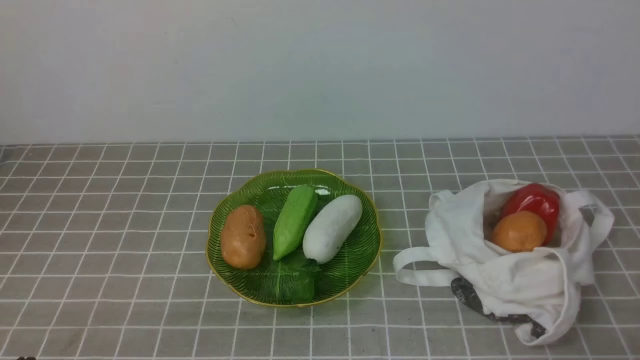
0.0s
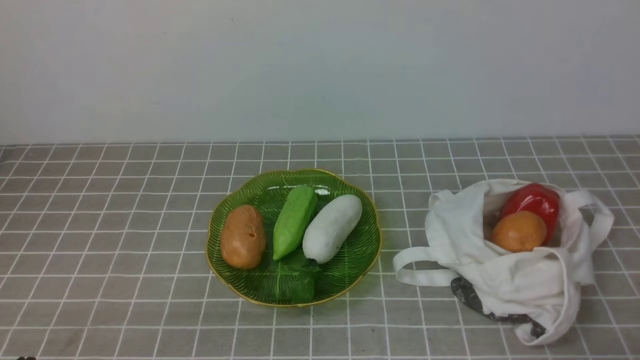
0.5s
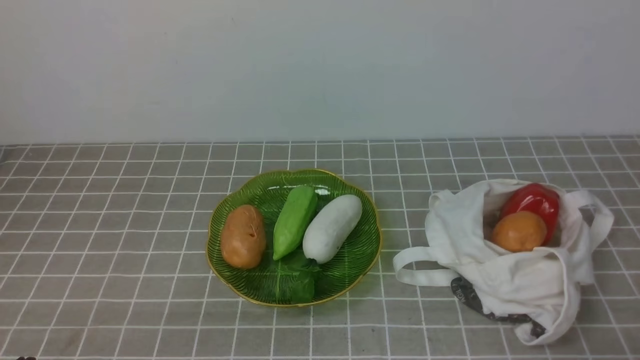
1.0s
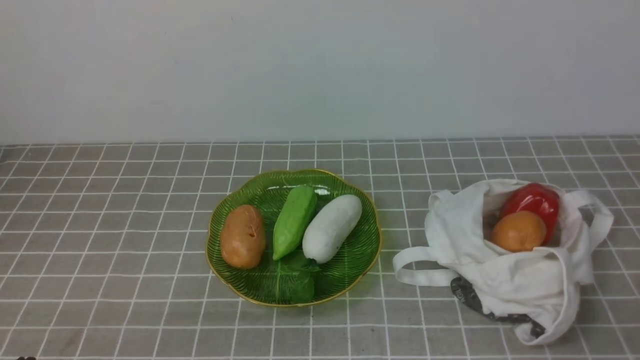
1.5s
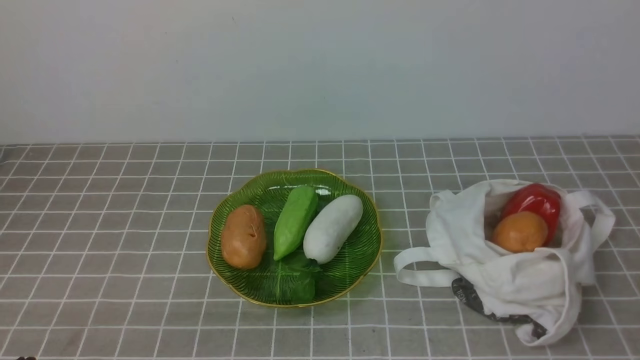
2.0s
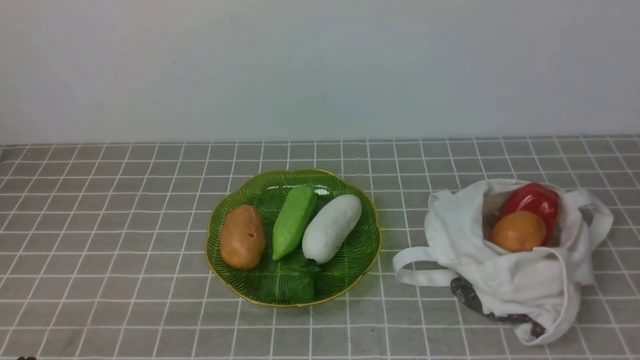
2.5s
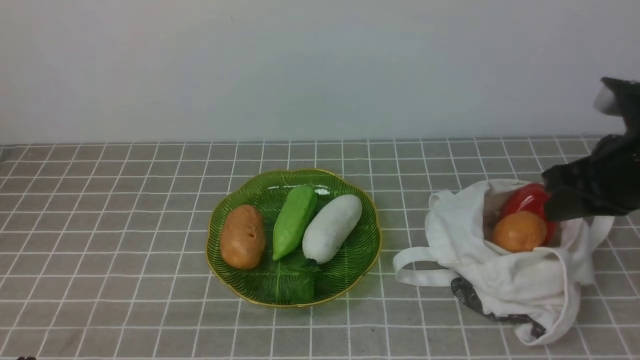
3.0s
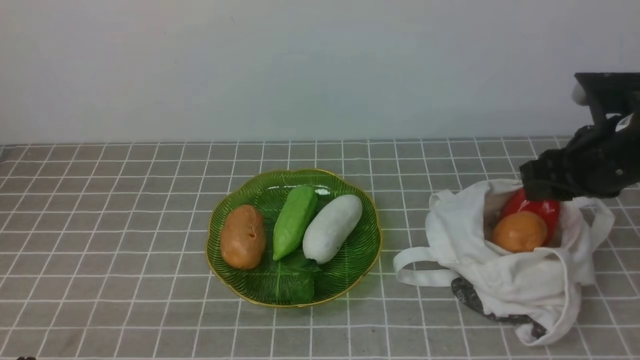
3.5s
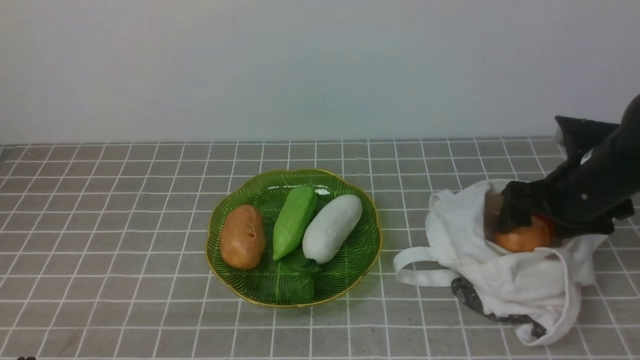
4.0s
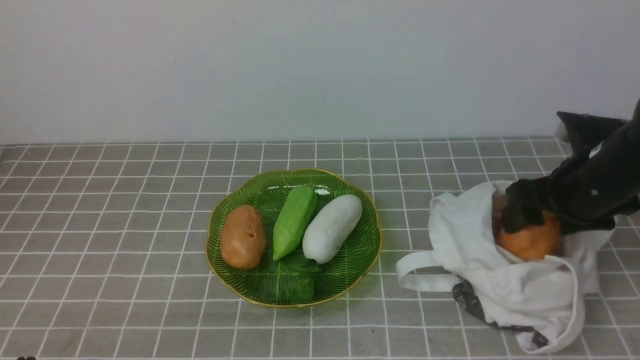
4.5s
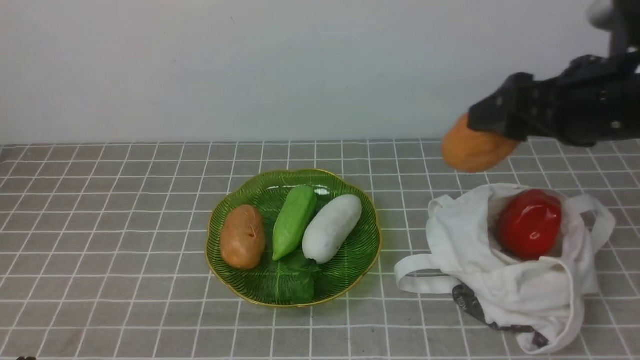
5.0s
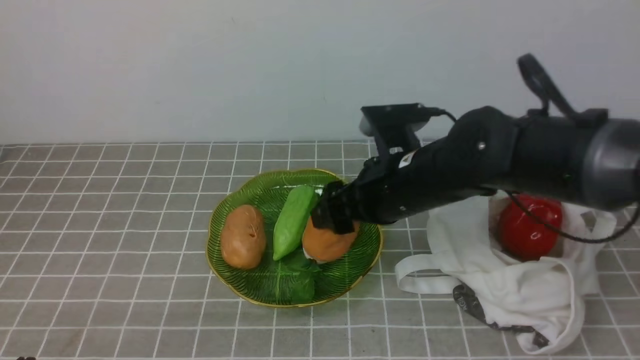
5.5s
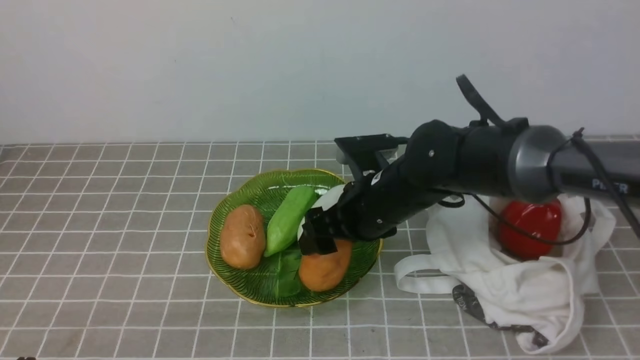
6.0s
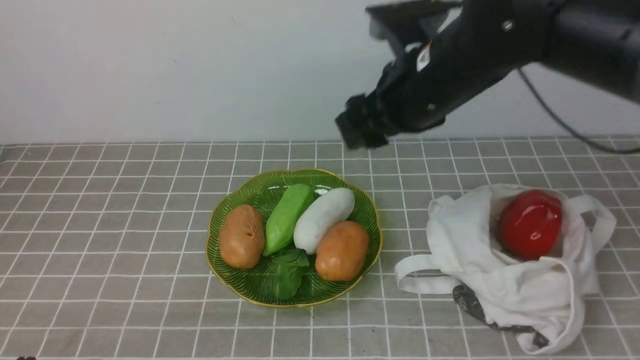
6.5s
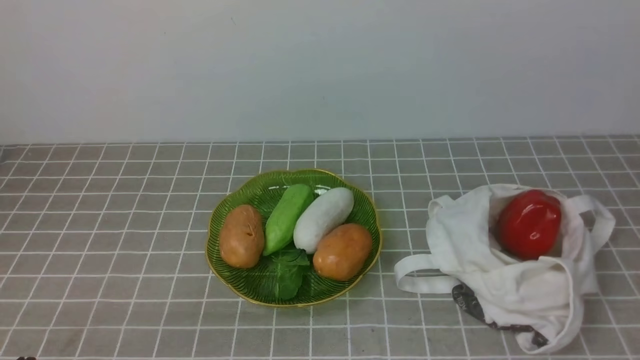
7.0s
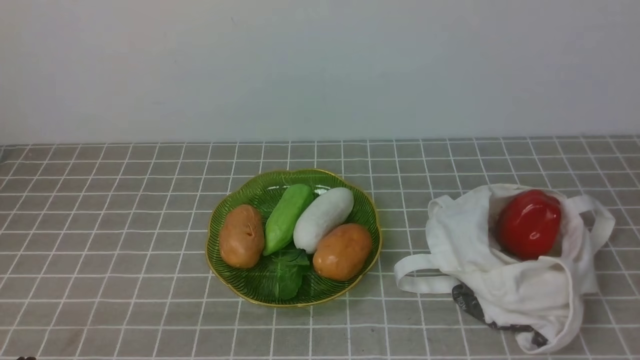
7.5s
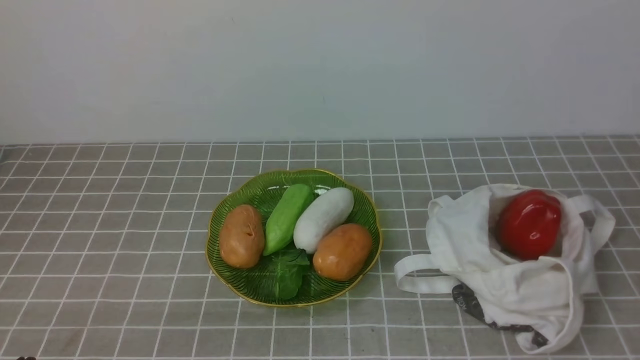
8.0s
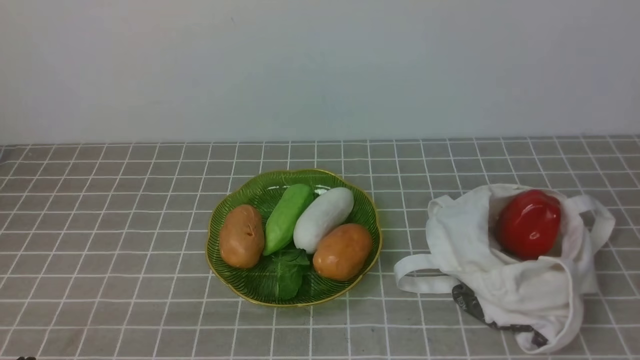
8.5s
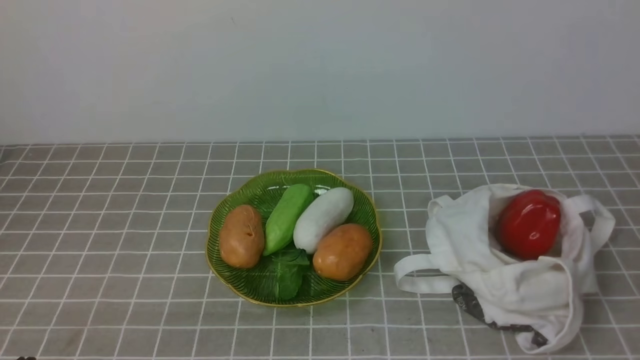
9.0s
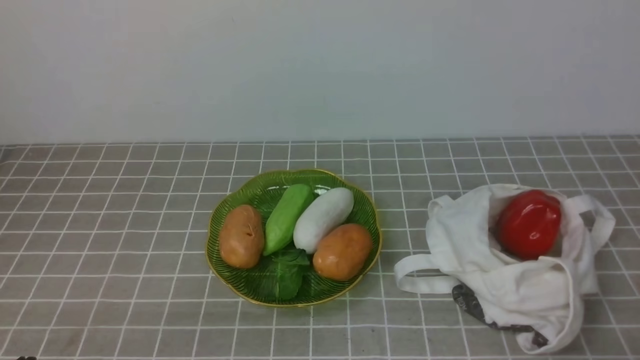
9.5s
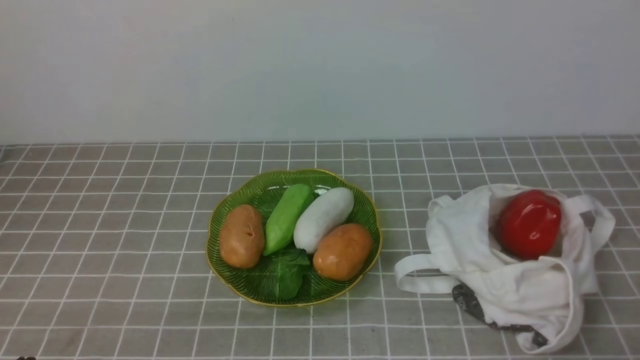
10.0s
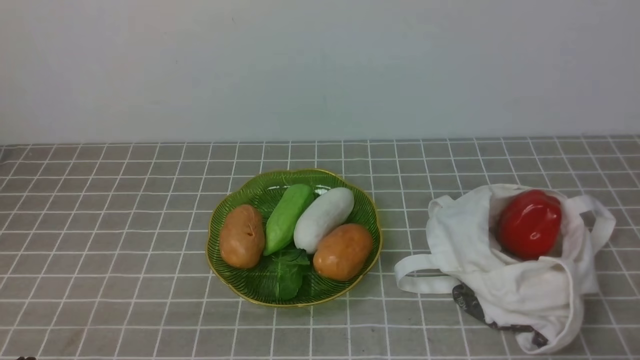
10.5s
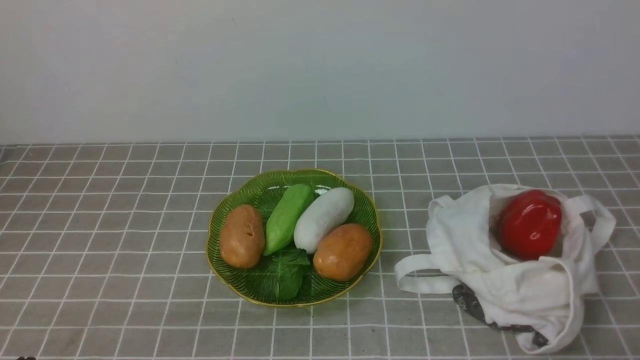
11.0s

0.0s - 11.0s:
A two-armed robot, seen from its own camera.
Task of the whole recording: take vegetables from bag on grey coffee tablecloth place on plate.
Step, 0.0s - 4.0s: Grasp the potato with right gripper.
Step, 4.5s - 6.0s: Place the potato on the plate with right gripper.
2.0s - 3.5s: The right gripper moves forward, some 25 cm, and opens up.
3.5s - 5.5s: The right gripper moves to the left, about 20 cm, and opens.
5.5s - 7.5s: The right gripper moves up and down over some 30 cm, changing direction 2 times, and closes.

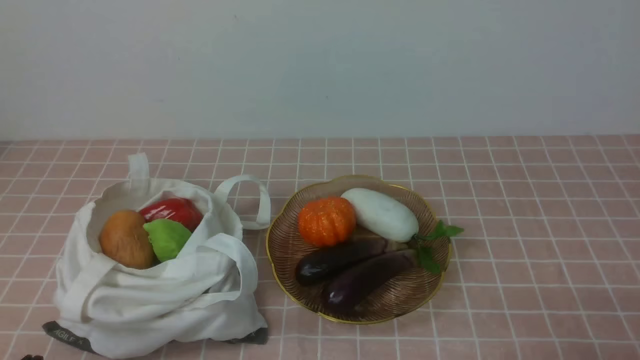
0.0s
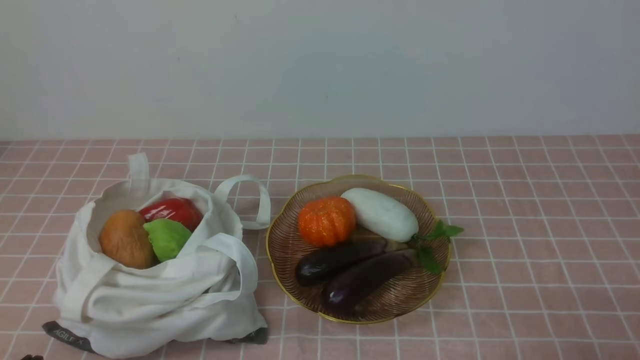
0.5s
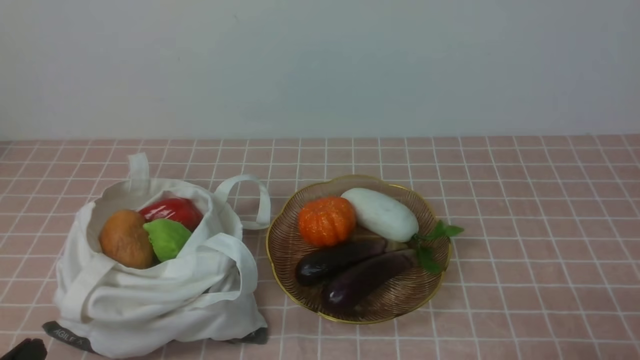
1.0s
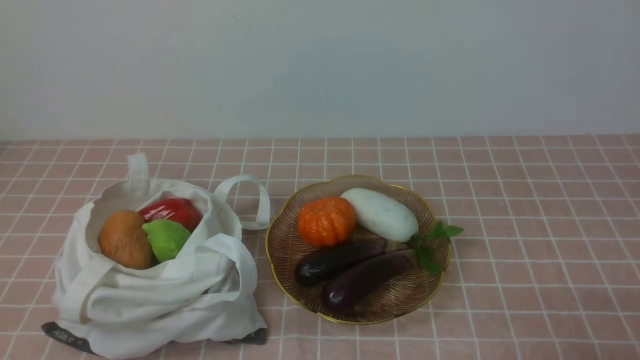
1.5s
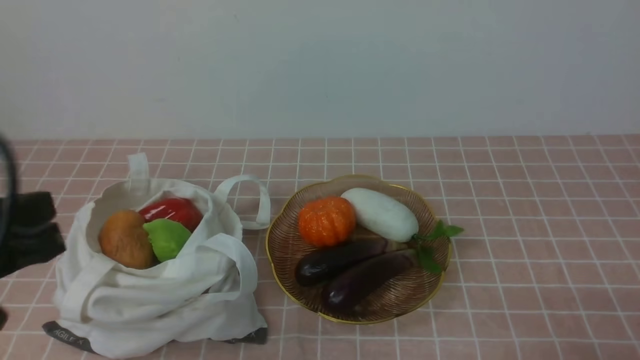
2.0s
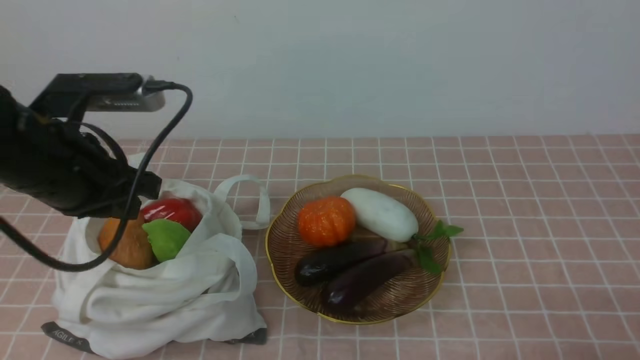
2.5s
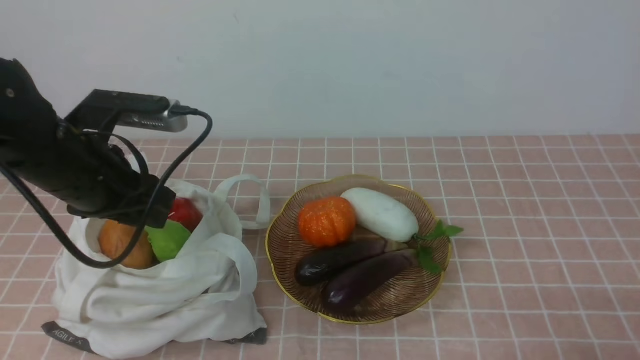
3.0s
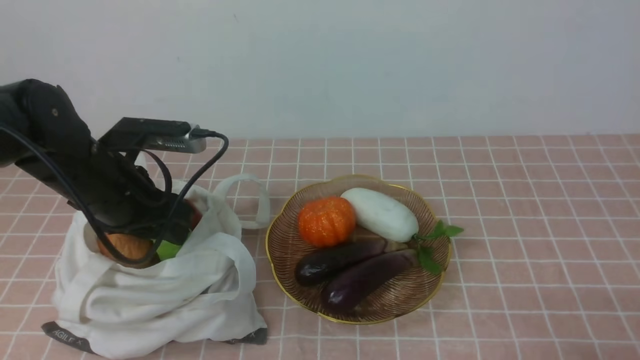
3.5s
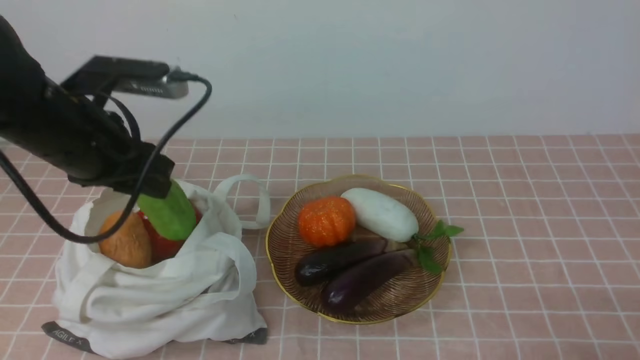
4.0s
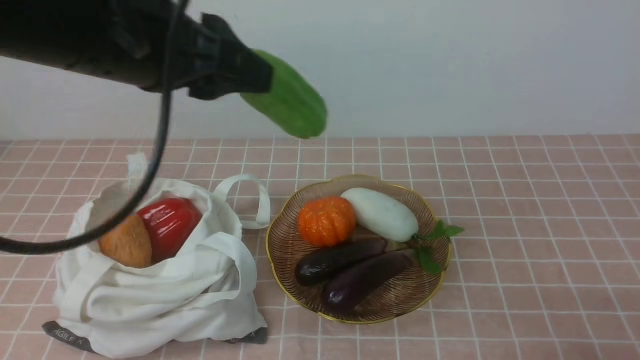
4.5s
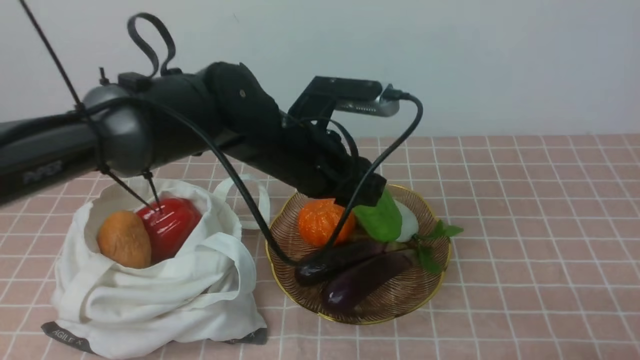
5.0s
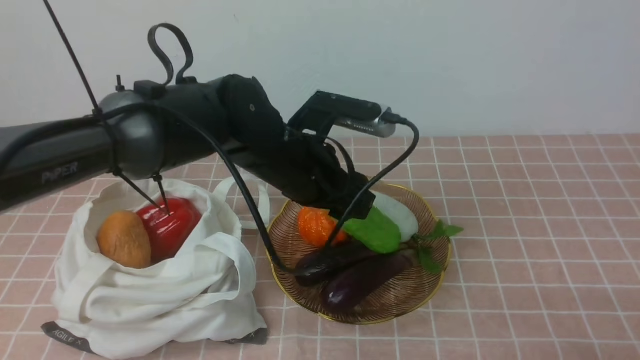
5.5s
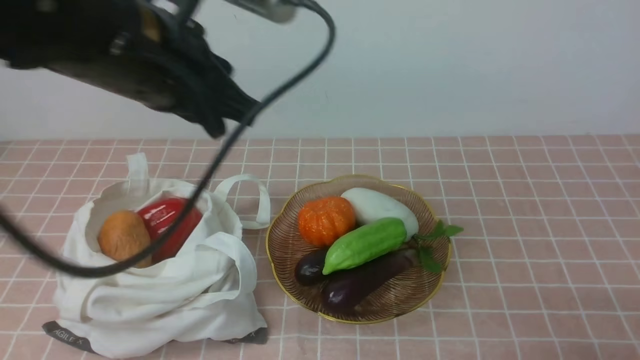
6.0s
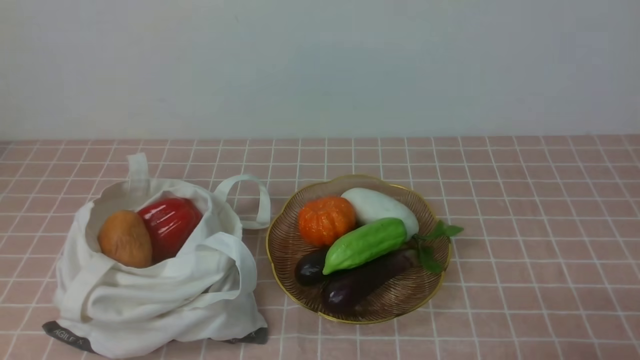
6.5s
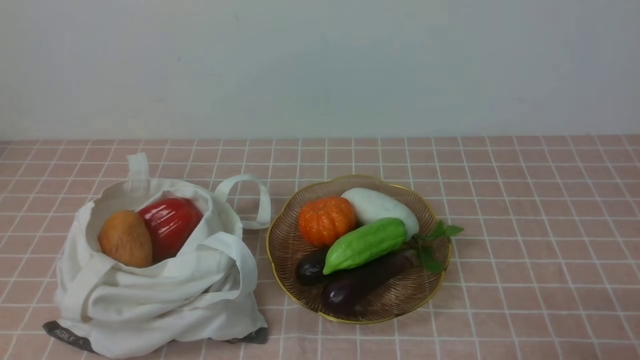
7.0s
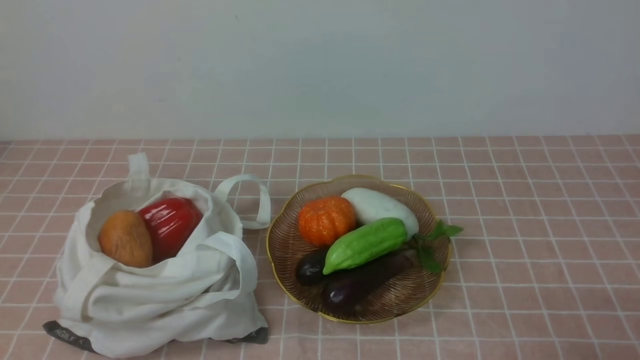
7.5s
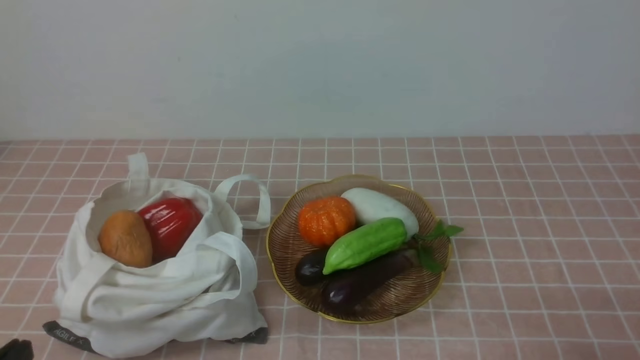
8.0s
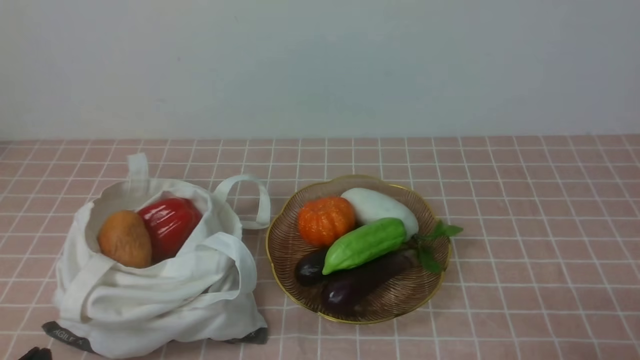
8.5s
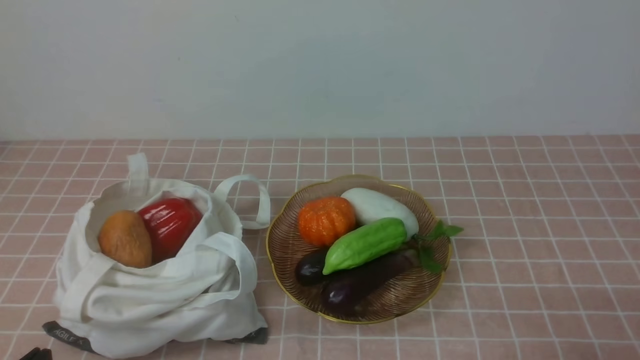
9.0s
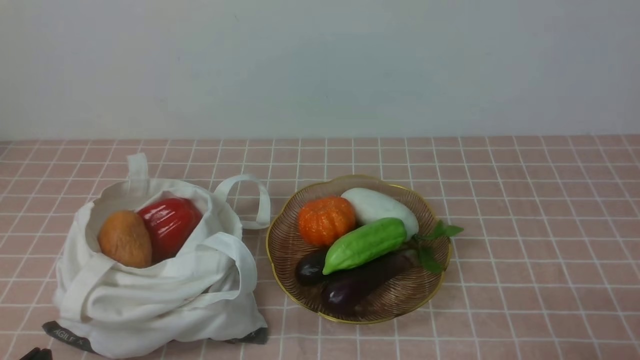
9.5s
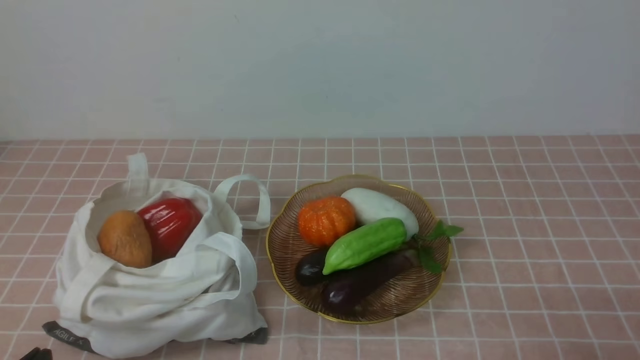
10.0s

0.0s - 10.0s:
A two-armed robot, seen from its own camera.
Task of the whole recording: take vegetables from bag on pink coffee tablecloth place on plate.
Step, 0.0s - 3.5s: Grasp the bitter melon with left gripper.
Step, 4.0s - 5.5s: Place the bitter melon on the plate with left gripper.
0.0s - 2.0s: The left gripper travels upward and forward by roughly 20 cm.
2.0s - 4.0s: The left gripper shifts approximately 15 cm forward, and opens up.
4.0s - 6.0s: The left gripper shifts about 15 cm upward, to the right and backward, and closes its fingers.
6.0s - 8.0s: The left gripper heads downward, backward and to the left, covering some 30 cm.
